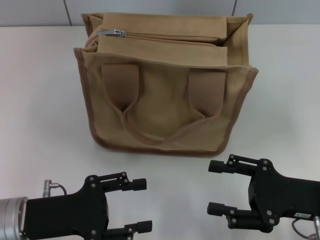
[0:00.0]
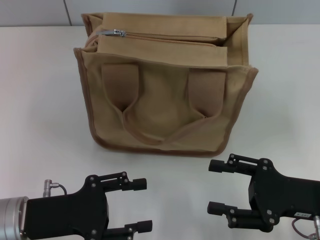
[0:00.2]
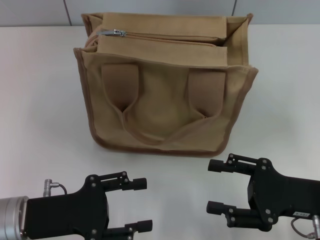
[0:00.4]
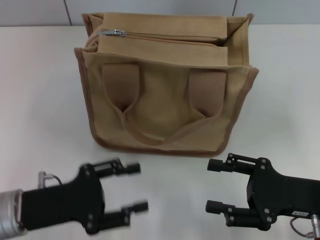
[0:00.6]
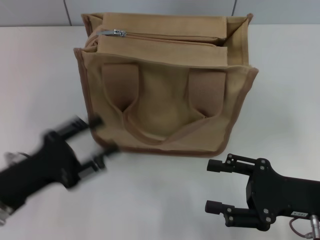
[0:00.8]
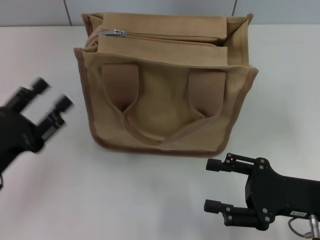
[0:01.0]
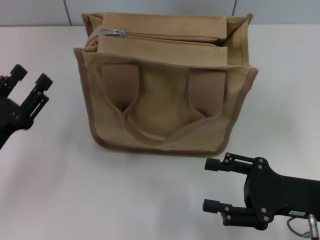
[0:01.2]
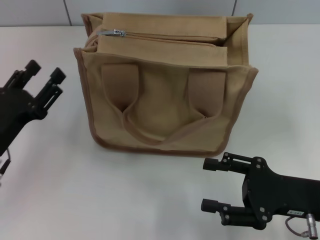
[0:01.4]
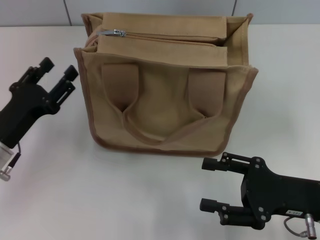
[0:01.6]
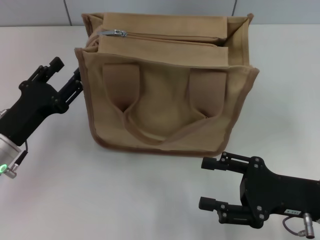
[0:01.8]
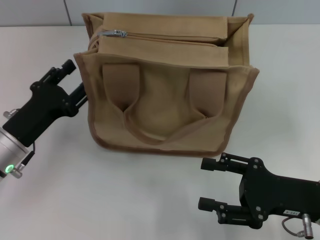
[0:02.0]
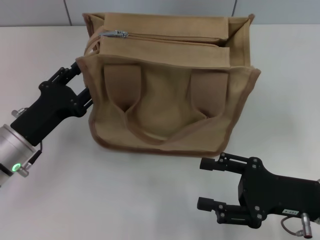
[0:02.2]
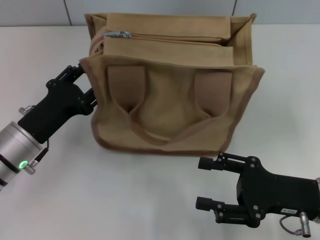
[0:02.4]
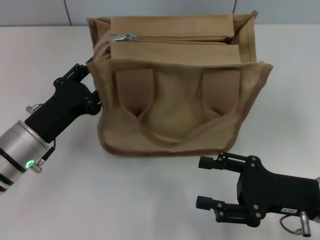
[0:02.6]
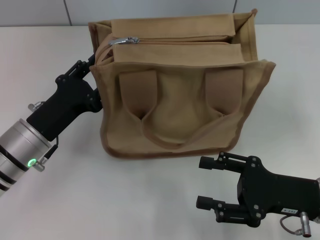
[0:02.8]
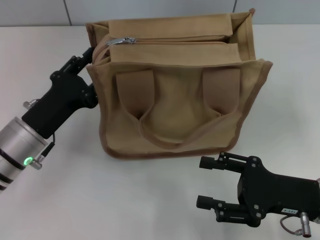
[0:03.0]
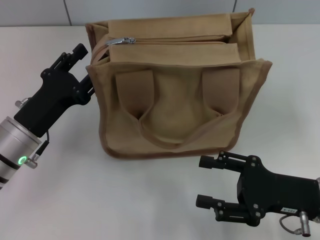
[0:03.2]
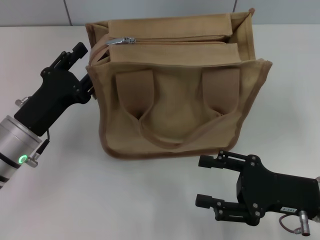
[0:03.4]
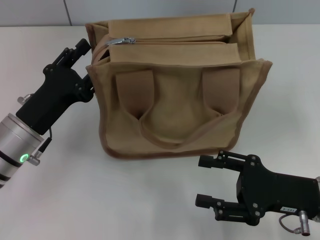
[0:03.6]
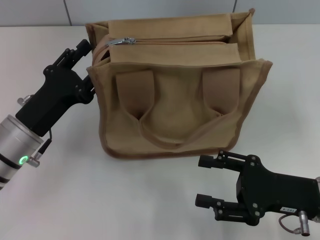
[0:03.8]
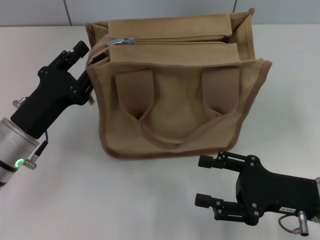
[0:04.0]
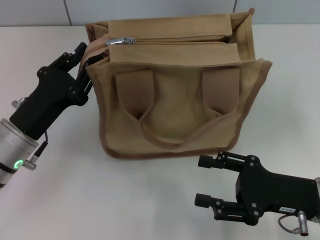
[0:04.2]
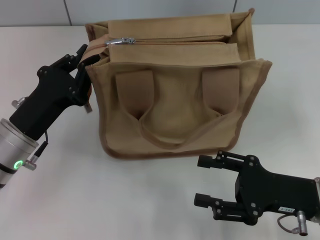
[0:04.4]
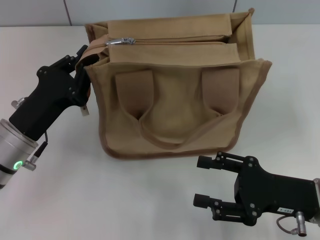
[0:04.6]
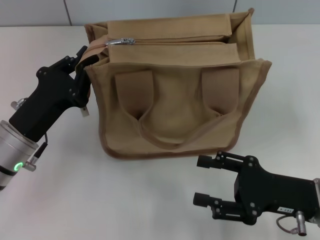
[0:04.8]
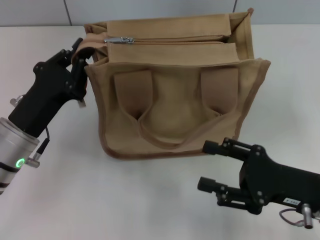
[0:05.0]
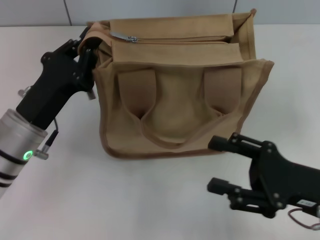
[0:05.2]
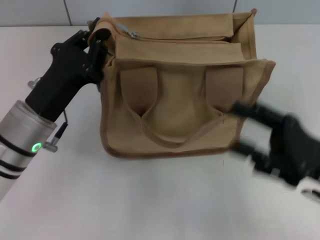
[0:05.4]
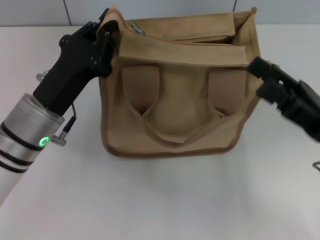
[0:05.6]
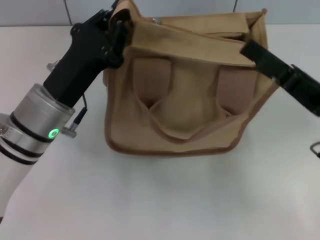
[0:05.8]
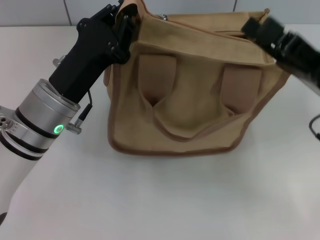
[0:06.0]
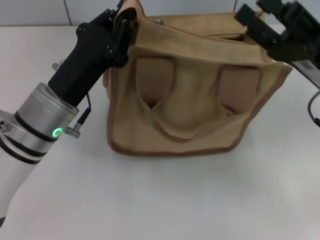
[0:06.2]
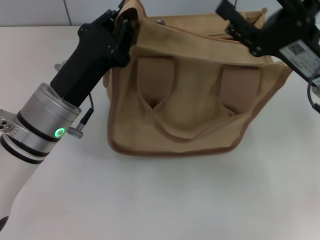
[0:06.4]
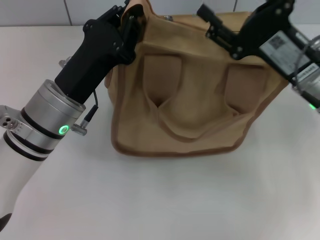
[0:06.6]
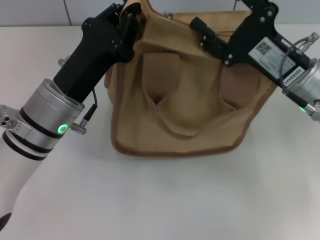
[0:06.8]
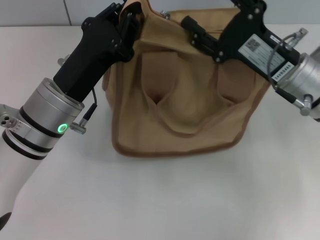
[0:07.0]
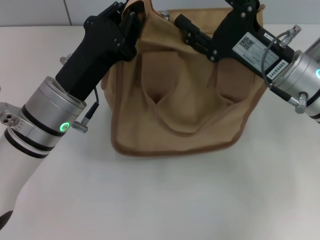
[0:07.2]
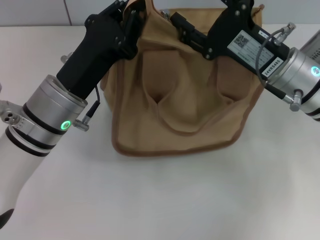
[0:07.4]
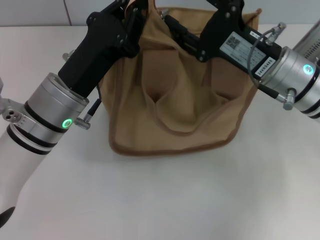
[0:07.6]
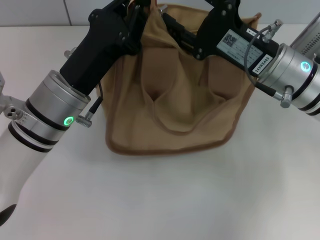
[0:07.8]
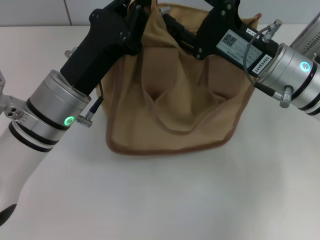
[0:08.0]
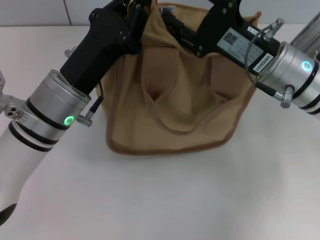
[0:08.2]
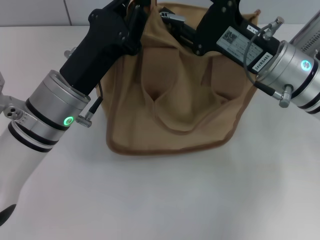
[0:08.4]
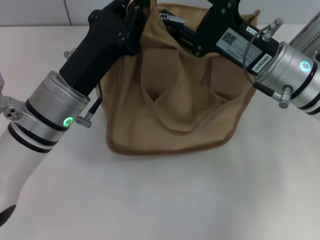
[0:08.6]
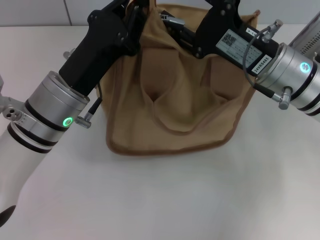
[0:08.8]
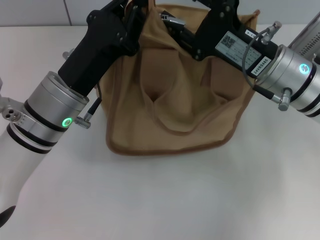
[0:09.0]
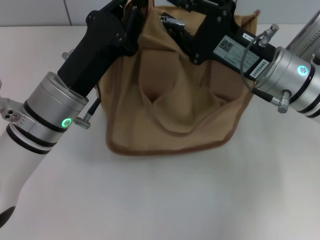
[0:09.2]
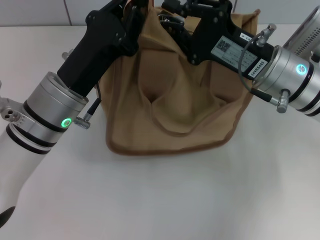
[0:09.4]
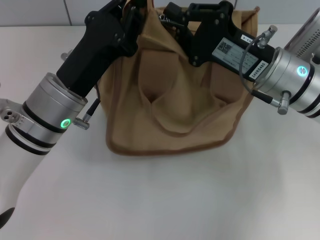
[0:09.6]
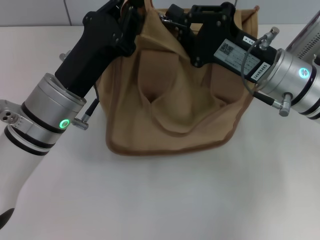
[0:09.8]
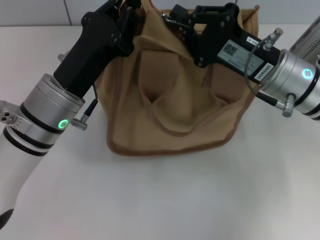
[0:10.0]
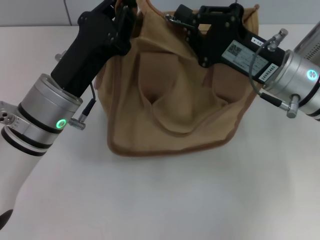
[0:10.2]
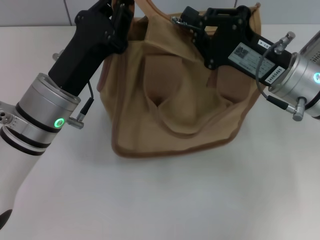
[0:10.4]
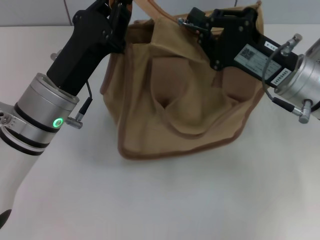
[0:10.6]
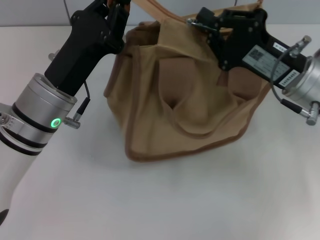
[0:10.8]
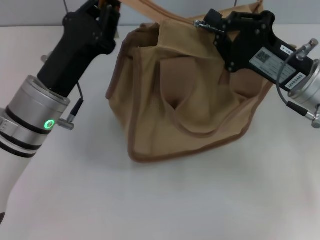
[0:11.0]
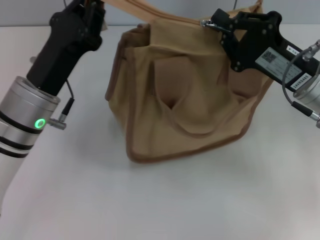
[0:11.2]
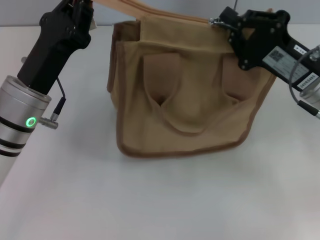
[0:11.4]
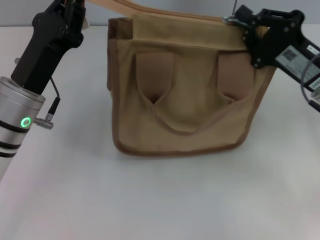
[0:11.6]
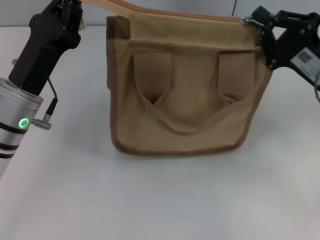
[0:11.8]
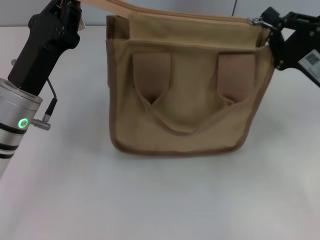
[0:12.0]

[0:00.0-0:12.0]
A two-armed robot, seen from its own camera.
0:00.0 to 0:01.6: The left gripper is displaced forward by roughly 5 cm.
0:01.6 to 0:03.0: The grippers move only a little.
0:03.0 to 0:04.4: The left gripper closes up.
0:04.4 to 0:06.0: The left gripper is displaced to the right by some 5 cm, while the right gripper travels upward and forward by some 10 cm.
0:06.0 to 0:07.6: The right gripper heads to the left and forward, covering approximately 10 cm.
0:07.6 to 0:09.0: Both grippers stay put.
0:09.0 to 0:10.4: The right gripper closes.
0:10.4 to 0:12.0: The right gripper is displaced to the right by about 10 cm.

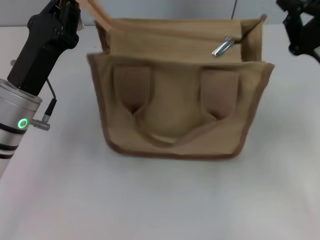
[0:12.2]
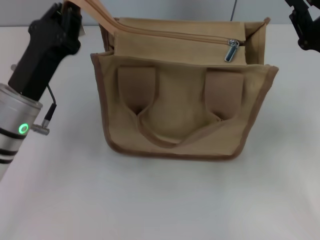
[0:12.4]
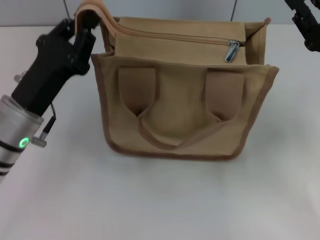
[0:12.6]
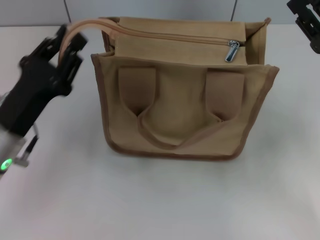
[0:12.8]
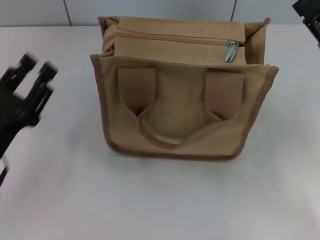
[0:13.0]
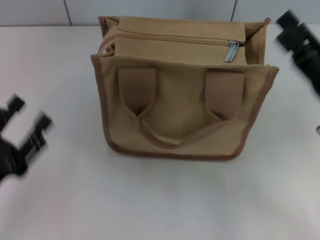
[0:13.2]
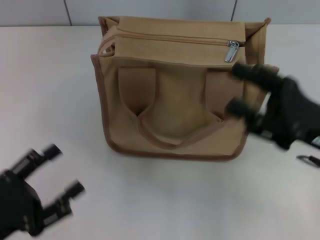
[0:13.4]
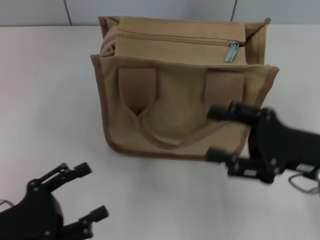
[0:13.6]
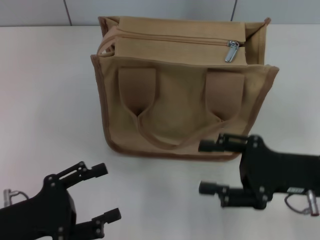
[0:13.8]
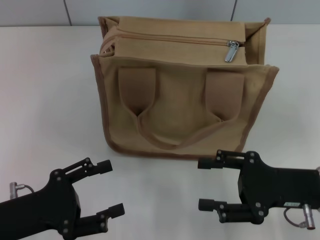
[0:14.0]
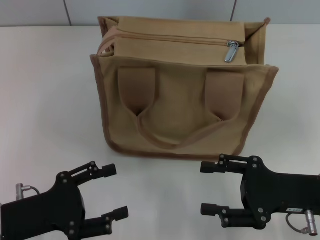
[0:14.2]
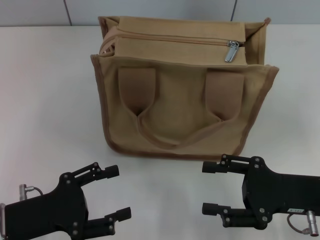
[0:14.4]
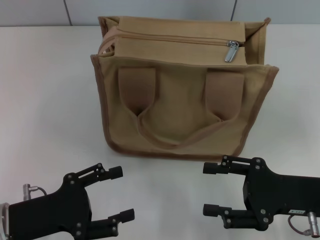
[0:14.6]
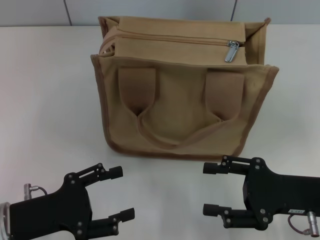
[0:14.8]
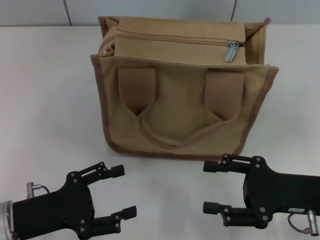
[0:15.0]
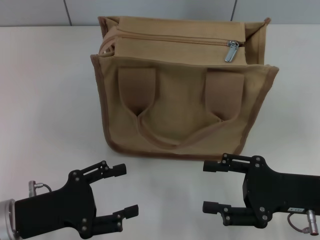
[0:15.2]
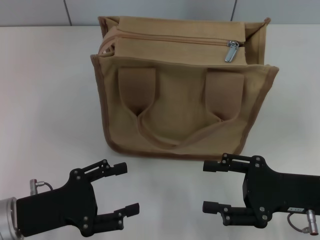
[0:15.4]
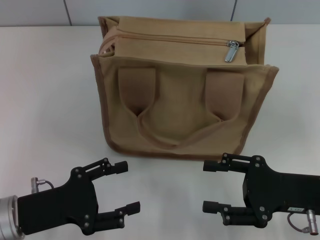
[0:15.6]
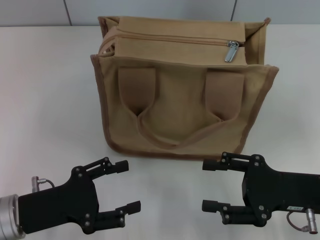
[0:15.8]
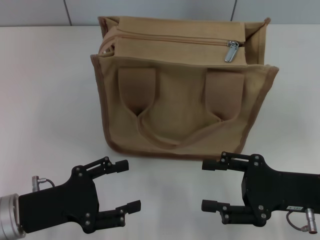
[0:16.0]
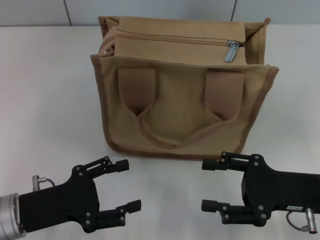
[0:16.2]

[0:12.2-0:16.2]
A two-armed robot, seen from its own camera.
Step, 0:12.2 to 0:12.8: Grab the zipper with your left hand.
0:12.2 to 0:13.6: The right gripper moves backward, about 5 cm, and opens up. The left gripper goes approximately 15 cm backward and to the left, and opens its fingers.
0:13.6 to 0:14.8: The grippers make only small movements.
0:14.8 to 0:16.2: The grippers move only a little.

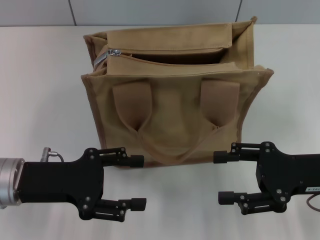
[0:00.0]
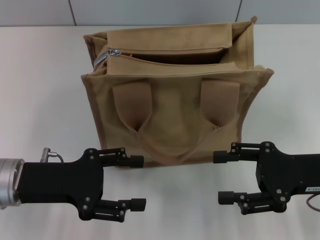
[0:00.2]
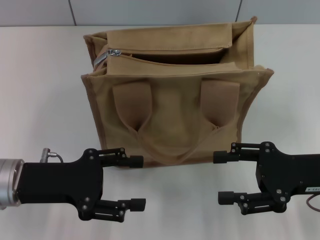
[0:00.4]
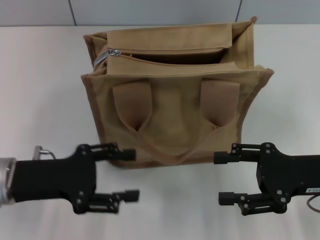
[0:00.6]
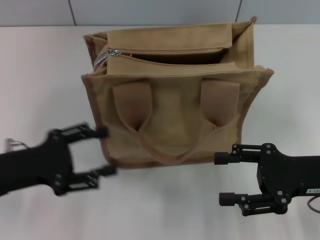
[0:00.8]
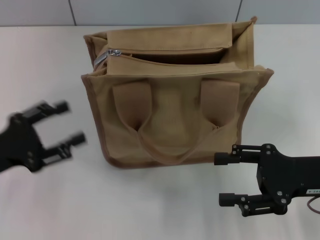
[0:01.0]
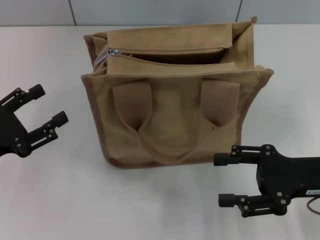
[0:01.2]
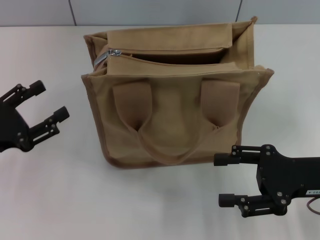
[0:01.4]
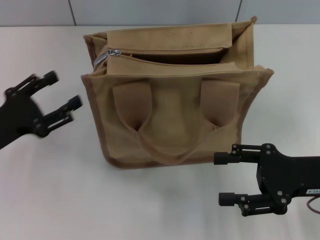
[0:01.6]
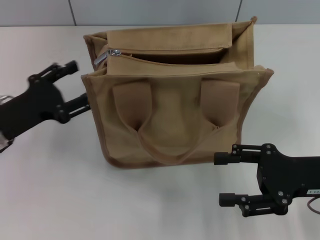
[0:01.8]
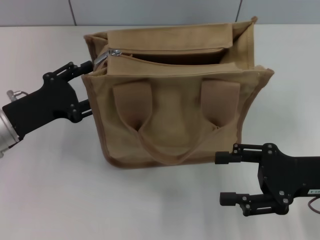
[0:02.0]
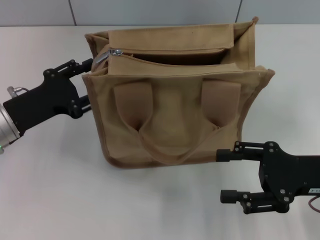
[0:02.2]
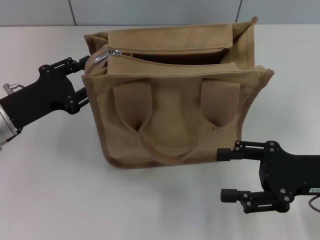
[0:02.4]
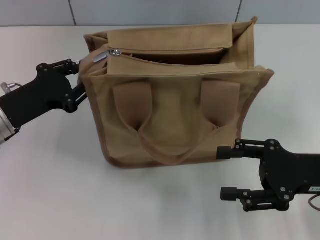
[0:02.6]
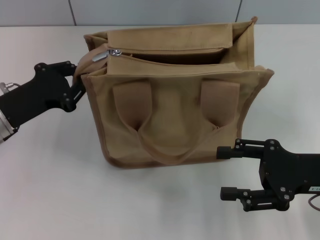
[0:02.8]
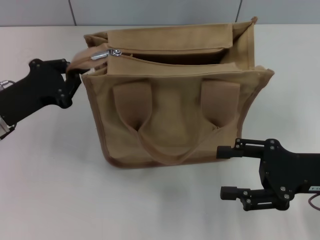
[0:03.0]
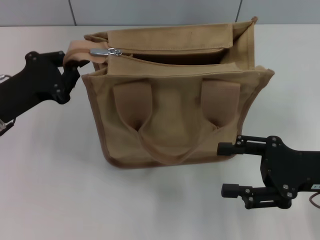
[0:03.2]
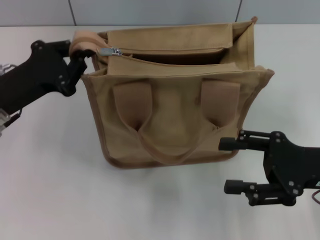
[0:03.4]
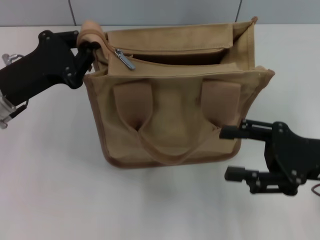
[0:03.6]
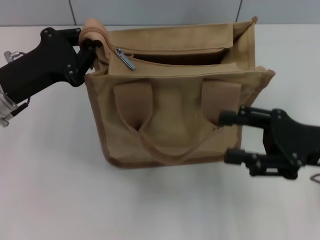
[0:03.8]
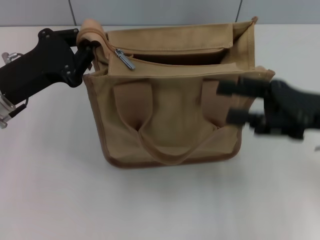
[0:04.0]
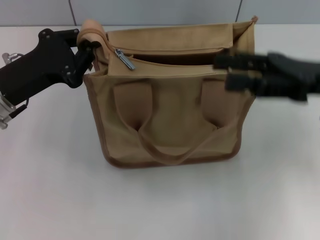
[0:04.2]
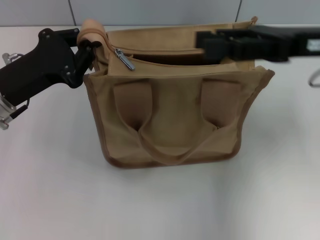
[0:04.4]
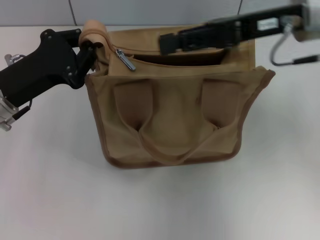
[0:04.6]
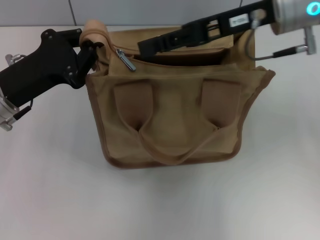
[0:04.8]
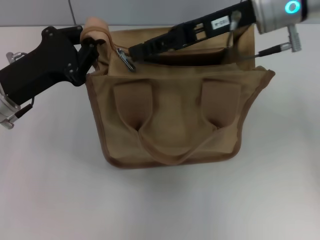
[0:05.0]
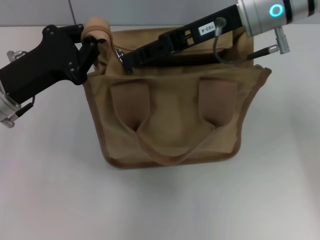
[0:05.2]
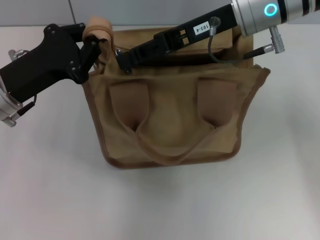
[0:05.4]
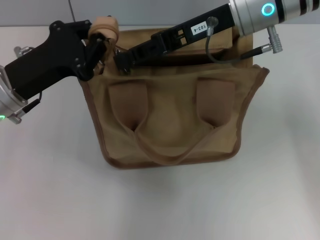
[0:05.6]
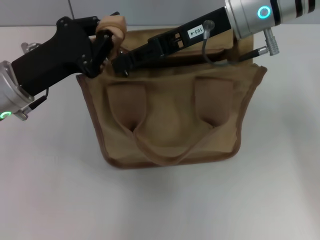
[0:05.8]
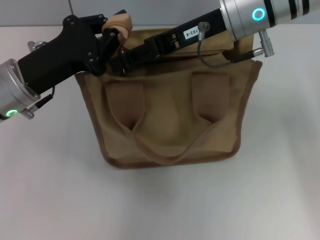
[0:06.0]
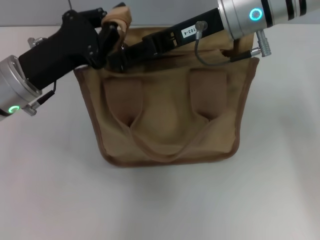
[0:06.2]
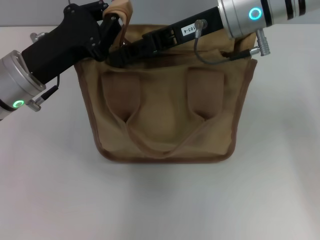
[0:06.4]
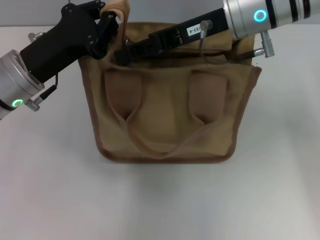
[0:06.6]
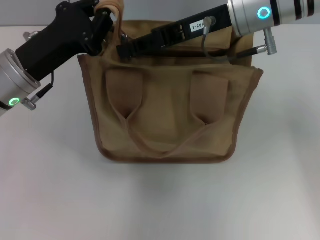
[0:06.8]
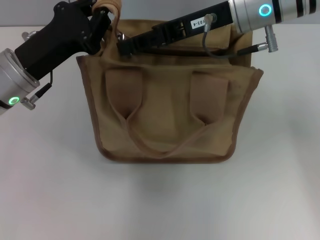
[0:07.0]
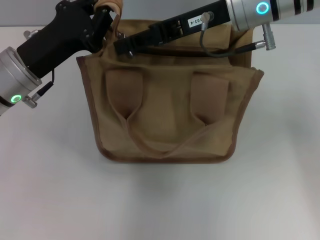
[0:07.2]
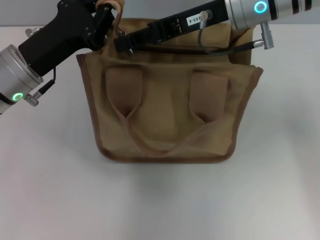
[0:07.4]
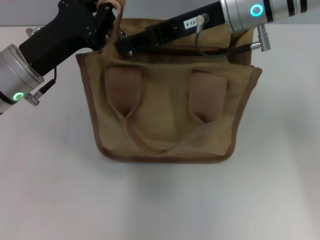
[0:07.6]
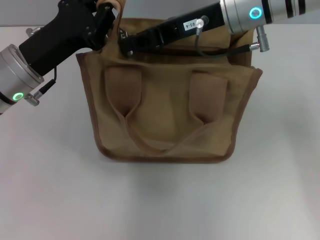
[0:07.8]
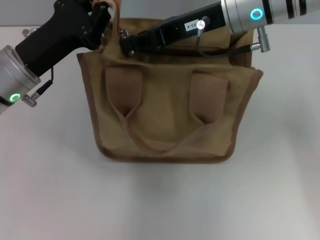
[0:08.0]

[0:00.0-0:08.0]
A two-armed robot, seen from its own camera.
0:00.0 to 0:01.6: The left gripper shifts about 5 cm to the left.
0:01.6 to 0:03.2: The left gripper ends up some 5 cm from where it was, and closes.
0:03.2 to 0:04.8: The right gripper travels forward, upward and to the left by roughly 25 cm.
0:04.8 to 0:06.4: The right gripper ends up about 5 cm from where it was.
0:06.4 to 0:08.0: The right gripper closes.
